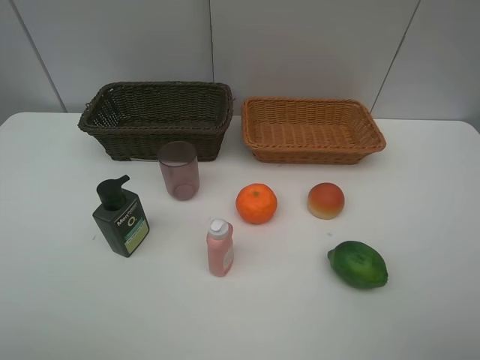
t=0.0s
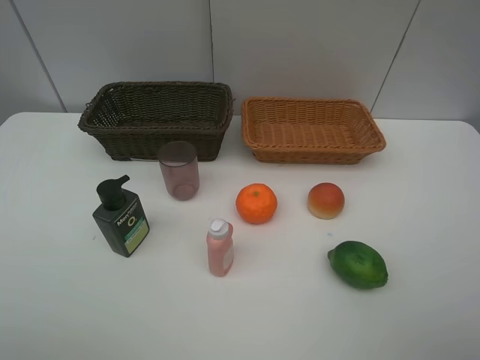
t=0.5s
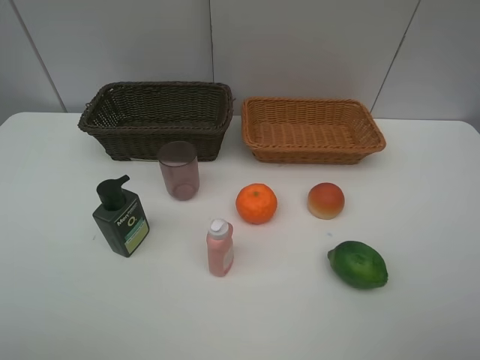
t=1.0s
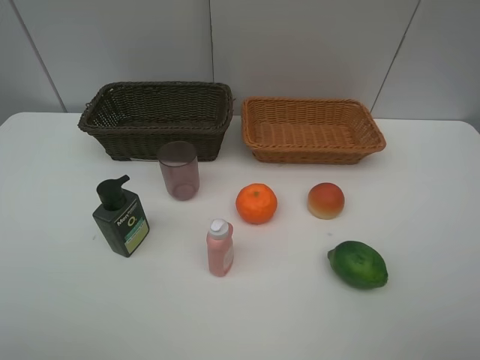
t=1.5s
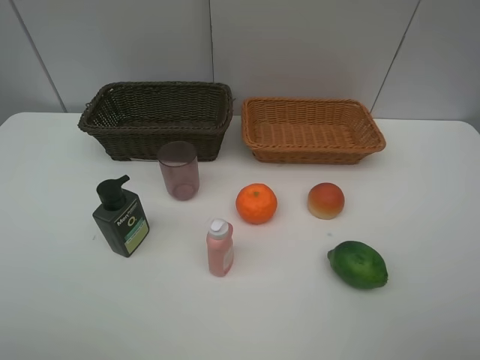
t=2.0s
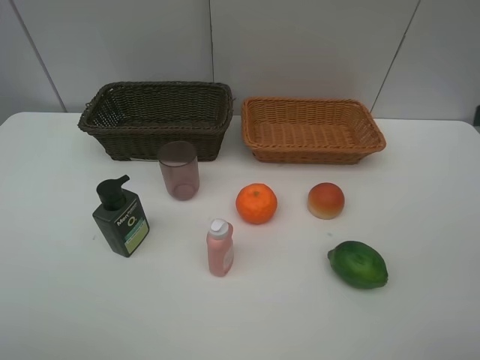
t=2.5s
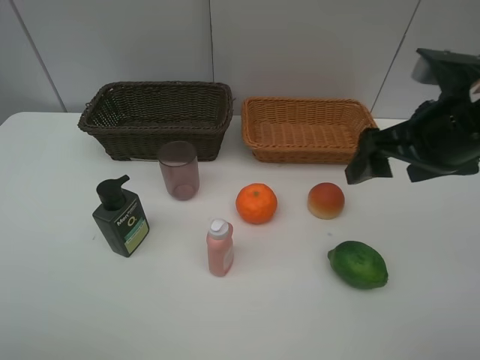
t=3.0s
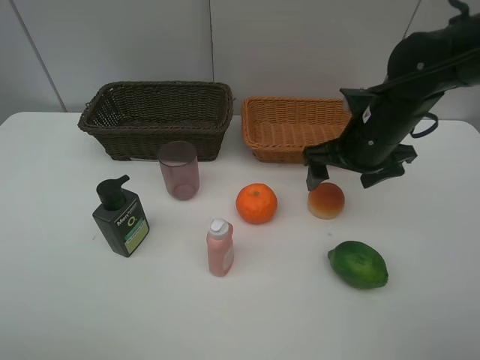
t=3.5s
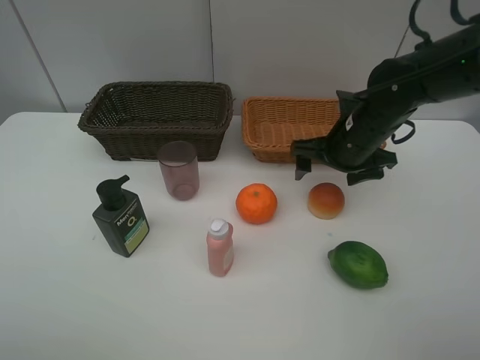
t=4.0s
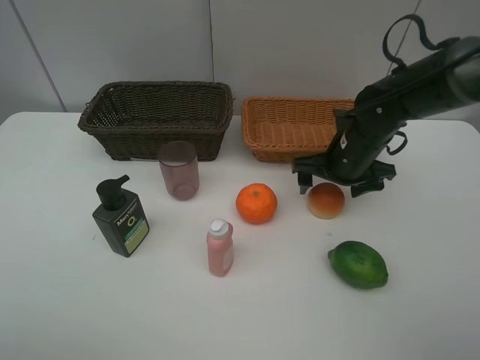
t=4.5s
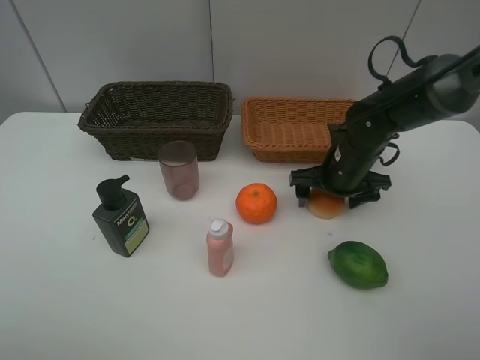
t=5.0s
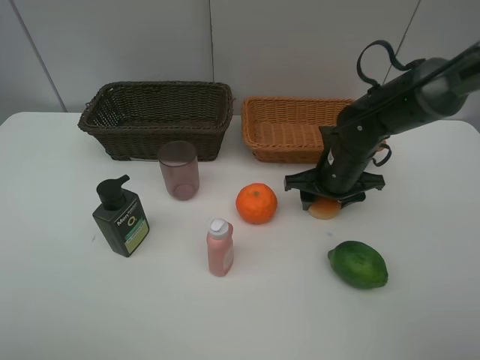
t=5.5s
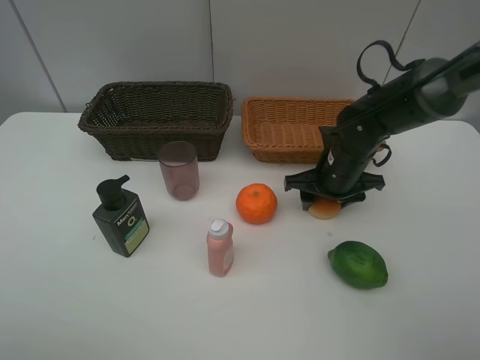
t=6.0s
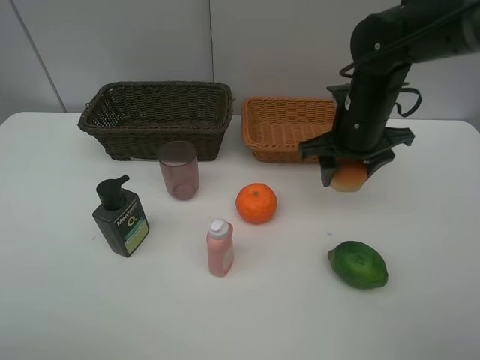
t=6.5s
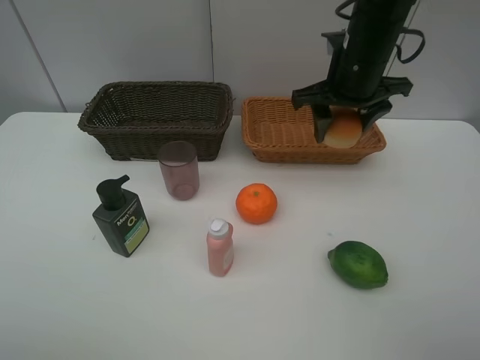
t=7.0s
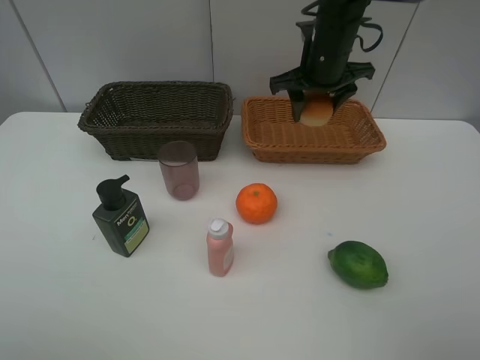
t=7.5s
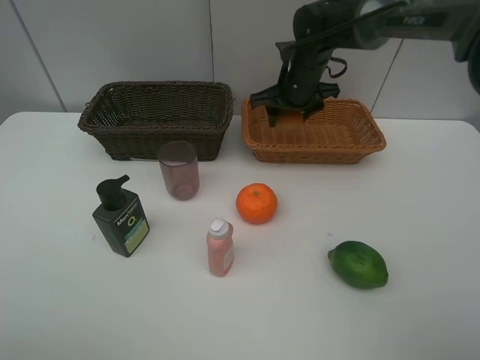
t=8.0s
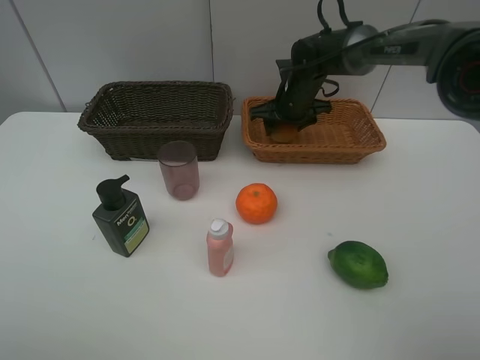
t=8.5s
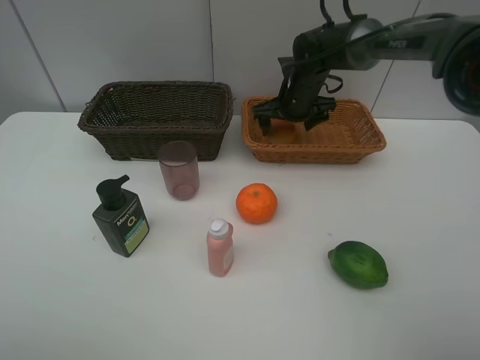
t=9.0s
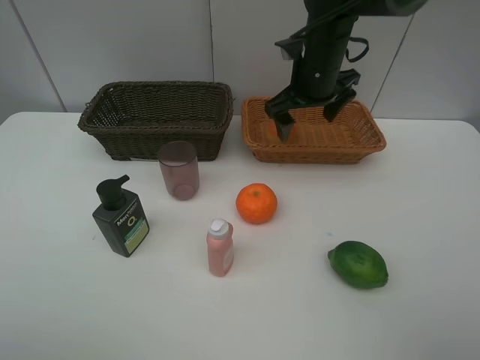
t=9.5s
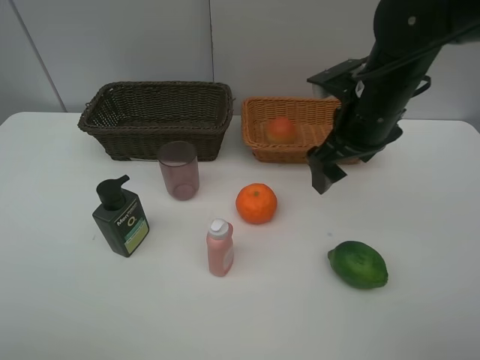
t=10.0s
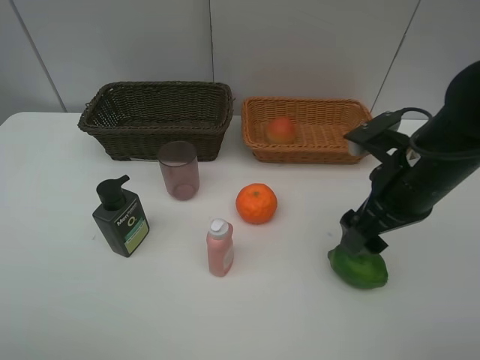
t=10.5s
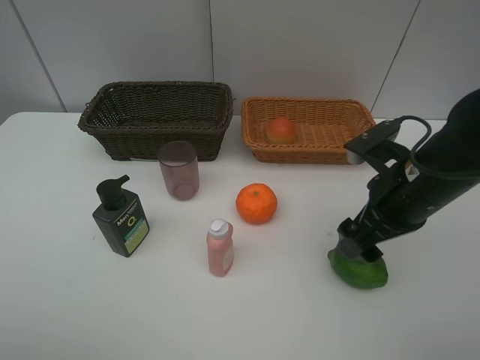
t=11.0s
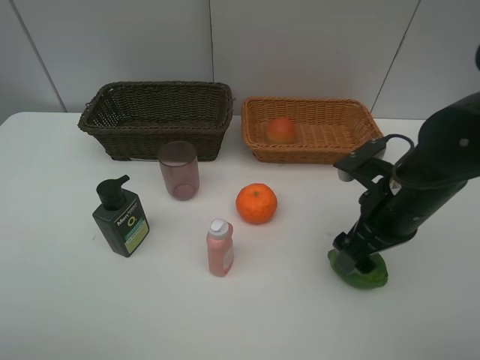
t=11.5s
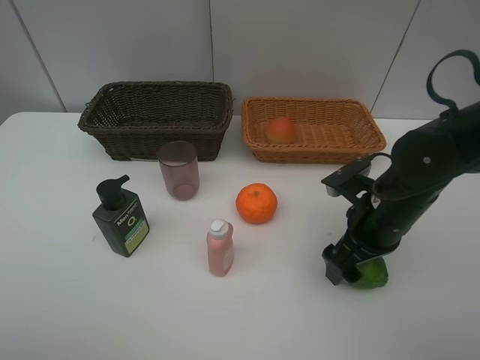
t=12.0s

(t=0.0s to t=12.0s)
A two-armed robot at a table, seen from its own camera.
Task of the whole recording: place multiple objects separately in different baskets.
t=2.0s - t=4.0s: The right gripper goes roughly 35 cm forward, downward and to the left.
t=4.0s - t=6.0s: The right gripper shifts roughly 5 cm downward, and closes its fingers.
t=6.0s - t=8.0s: The right gripper is displaced forward, upward and to the left by approximately 15 cm.
t=8.0s - t=10.0s: The right gripper travels backward by approximately 15 cm, and opens.
t=10.0s - t=12.0s: The right gripper shifts about 15 cm downward and backward.

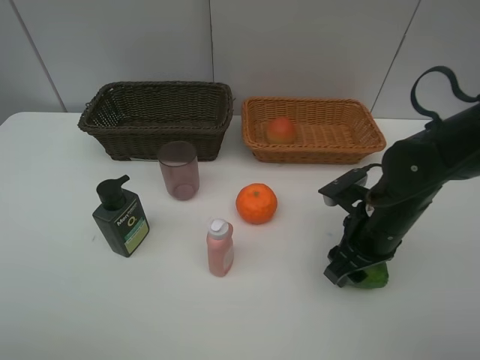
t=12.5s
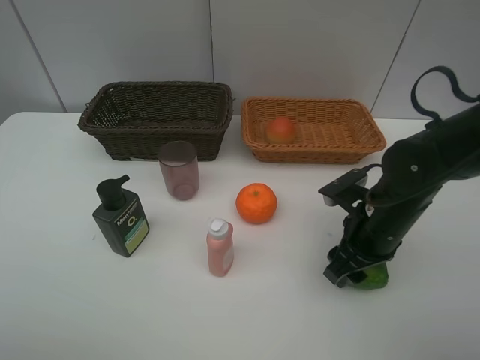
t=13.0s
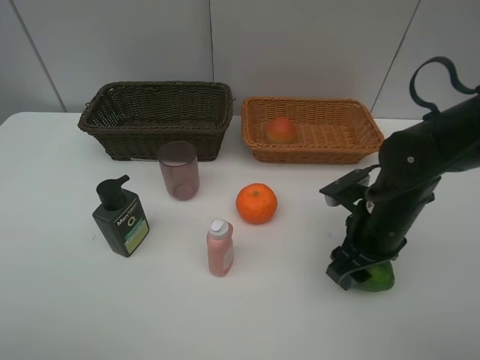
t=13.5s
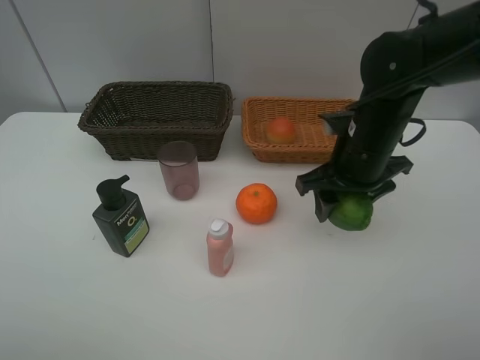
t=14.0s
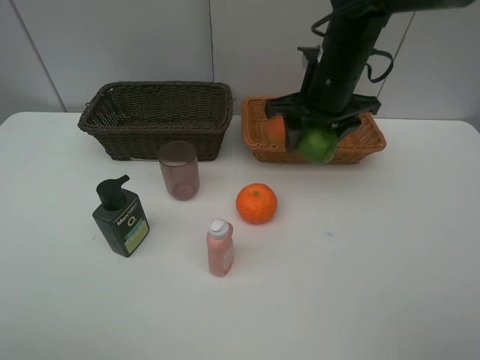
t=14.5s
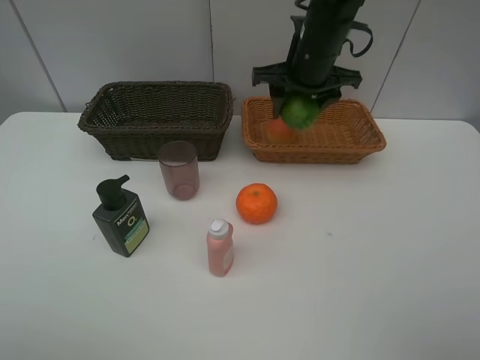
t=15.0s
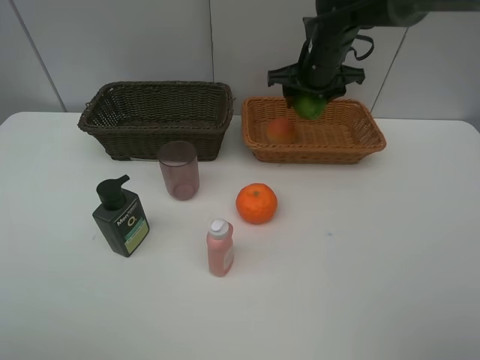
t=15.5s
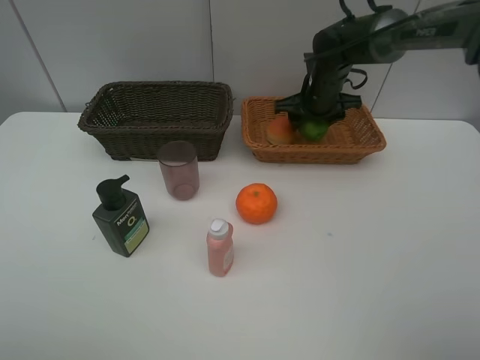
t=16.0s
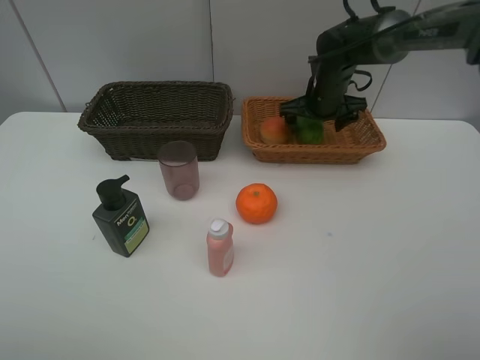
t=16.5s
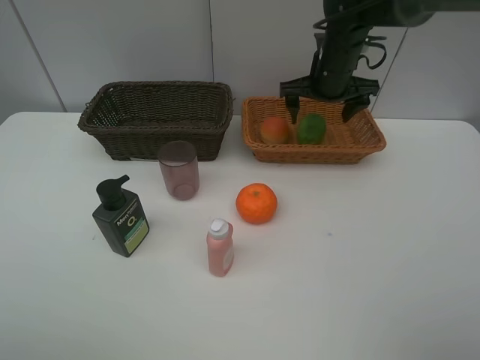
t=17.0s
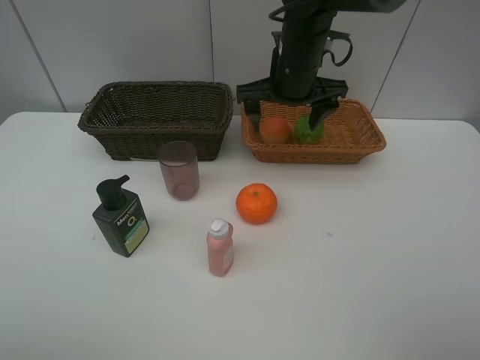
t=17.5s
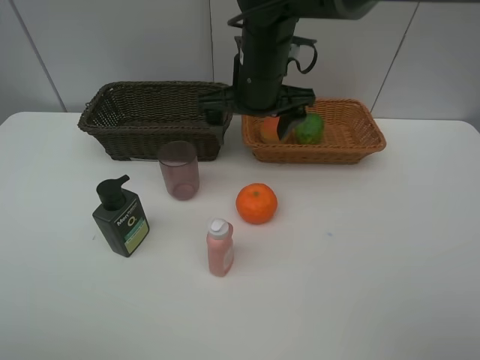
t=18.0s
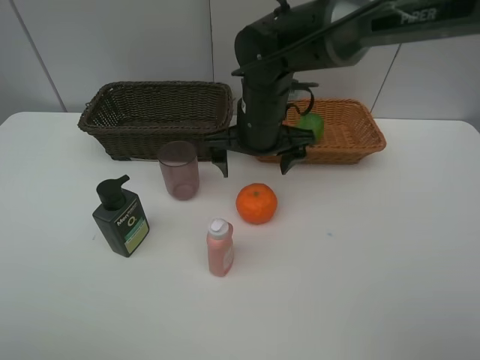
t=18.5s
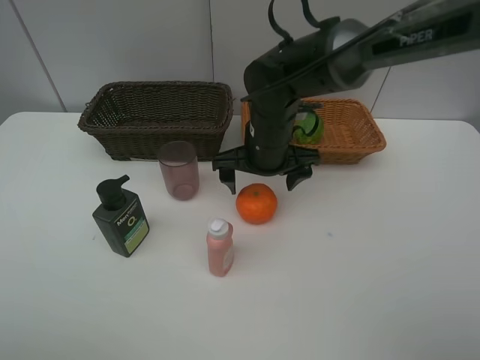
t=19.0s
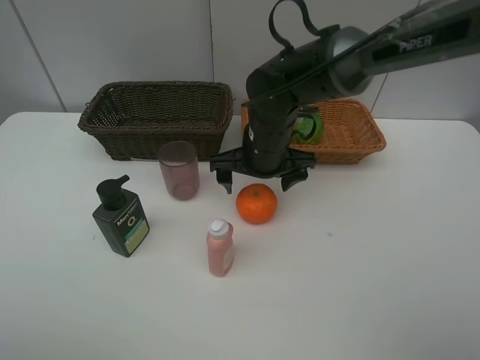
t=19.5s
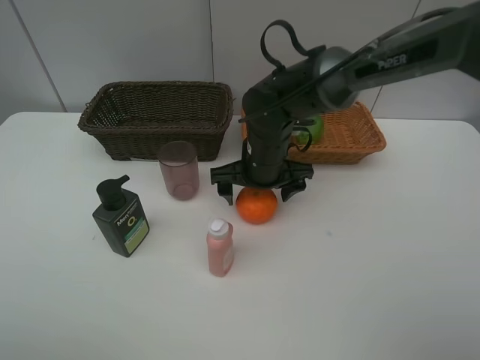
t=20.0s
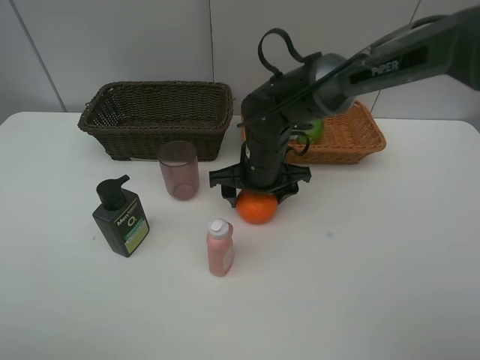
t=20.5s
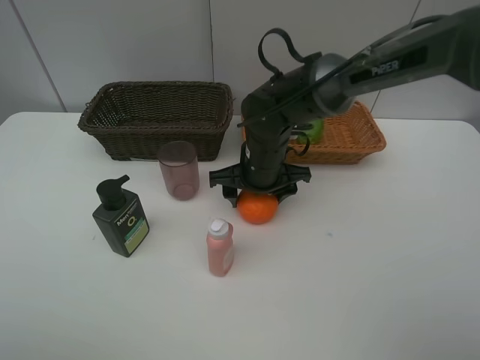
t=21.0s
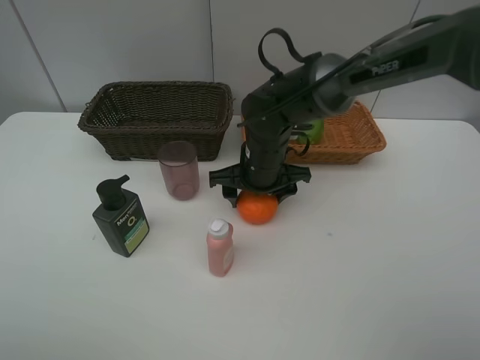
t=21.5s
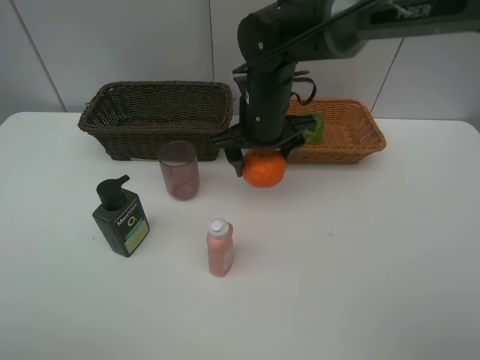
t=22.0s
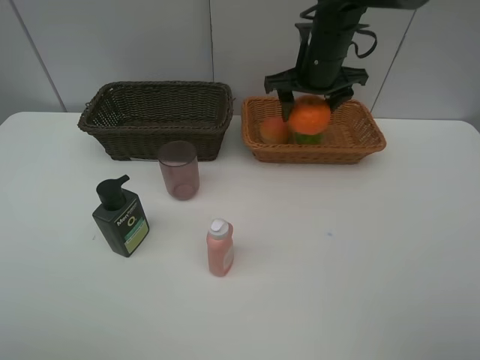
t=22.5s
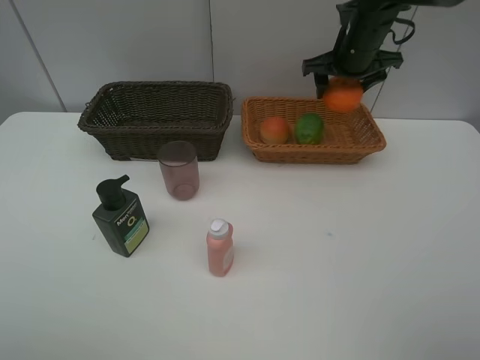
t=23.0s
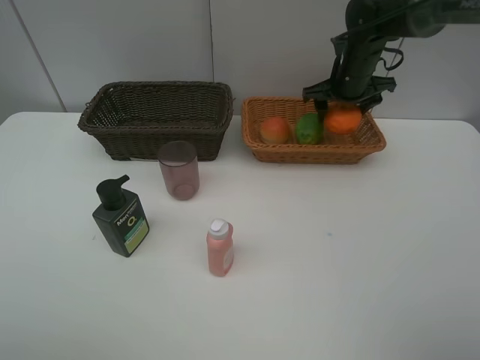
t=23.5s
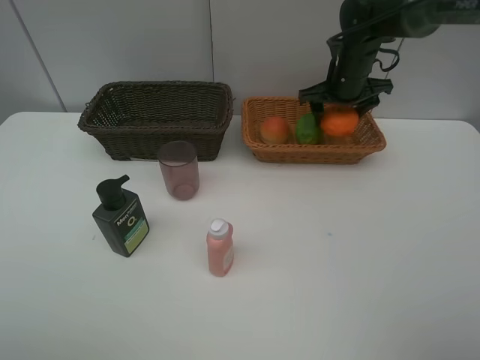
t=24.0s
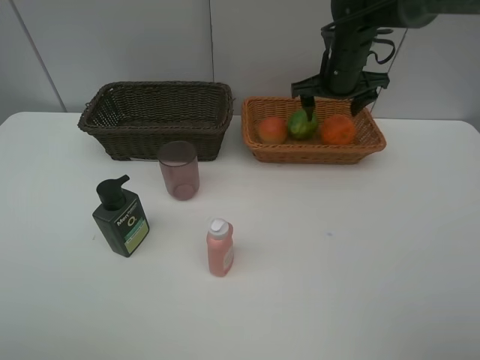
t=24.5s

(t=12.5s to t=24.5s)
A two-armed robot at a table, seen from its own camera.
Task of the whole recording: place multiple objects separately in different baskets.
t=12.5s - t=14.5s: The right gripper goes approximately 20 cm forward, upward and to the left.
t=14.5s - t=16.5s: The right gripper heads forward and downward, covering some 15 cm, and opens its fingers.
t=16.5s - t=18.5s: The right gripper is displaced backward and to the left by approximately 20 cm.
t=18.5s - t=20.5s: The right gripper heads downward, covering about 5 cm, and closes.
t=20.5s - t=22.5s: The right gripper moves upward, forward and to the right, some 20 cm.

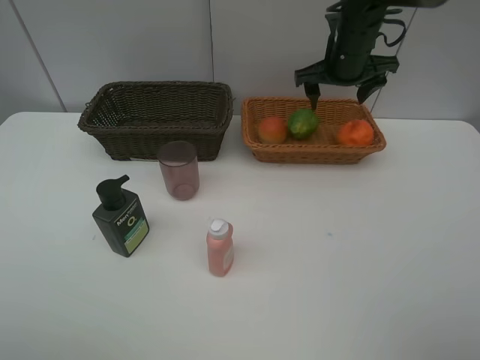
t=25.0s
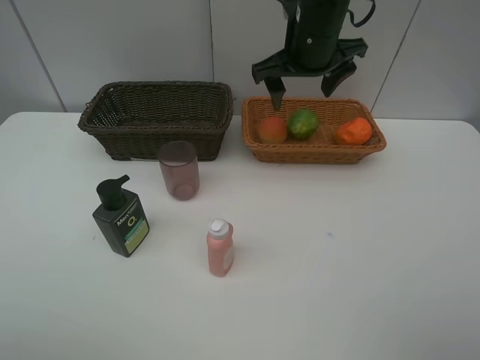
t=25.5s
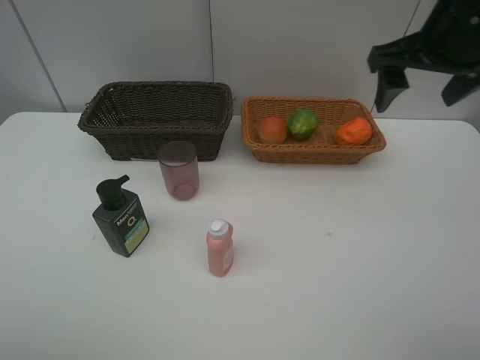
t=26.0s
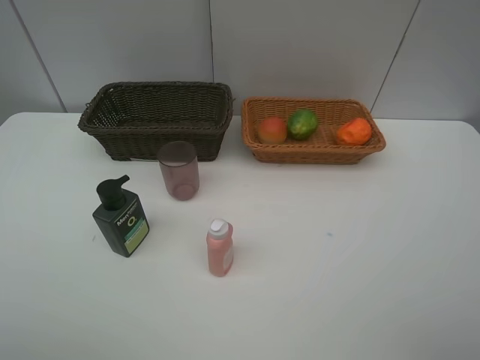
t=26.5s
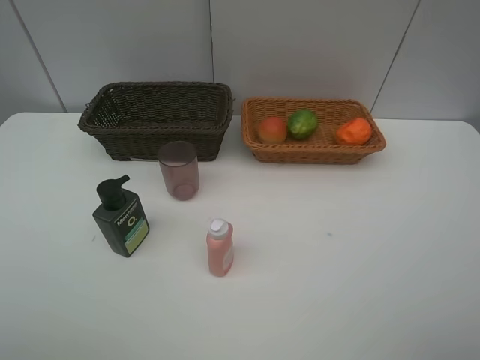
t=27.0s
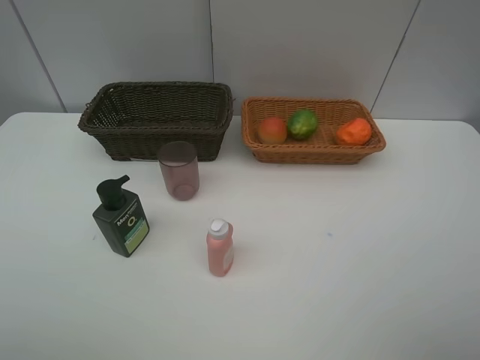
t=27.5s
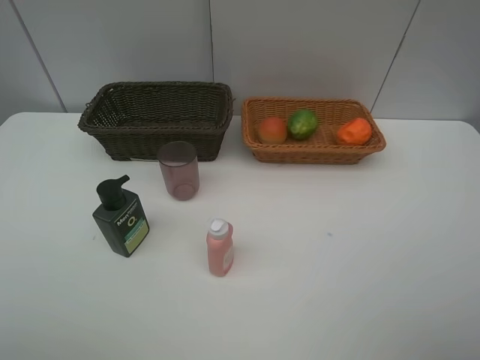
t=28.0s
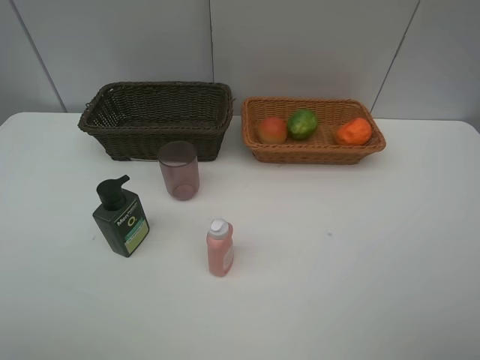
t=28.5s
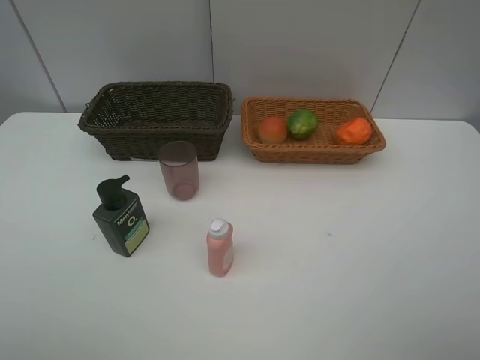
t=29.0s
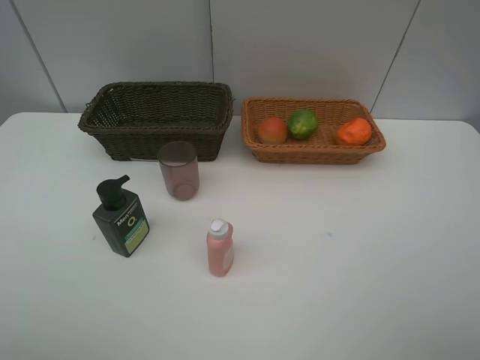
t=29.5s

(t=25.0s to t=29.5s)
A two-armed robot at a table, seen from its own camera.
Task of the whole recording: place multiple objects separately in different baskets.
t=25.0s - t=27.0s: The right gripper heads backward, covering approximately 50 cm.
